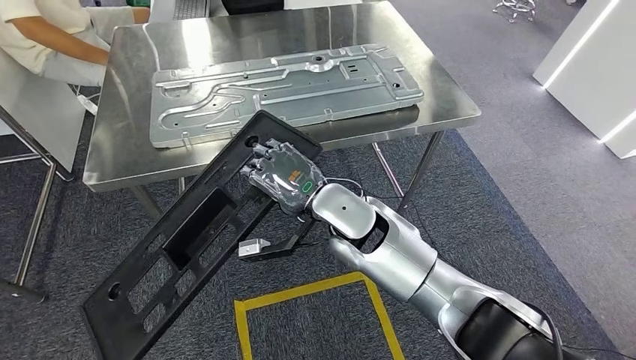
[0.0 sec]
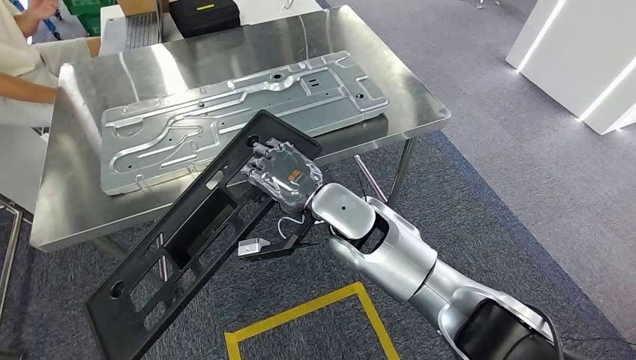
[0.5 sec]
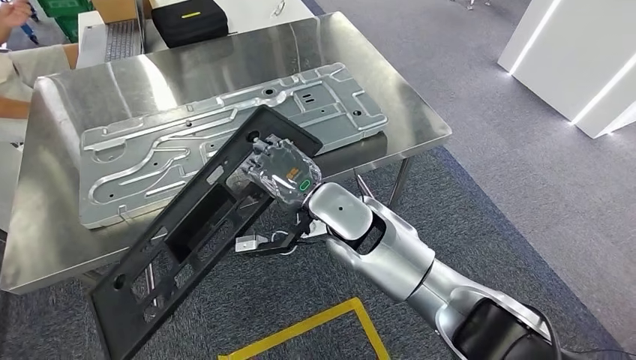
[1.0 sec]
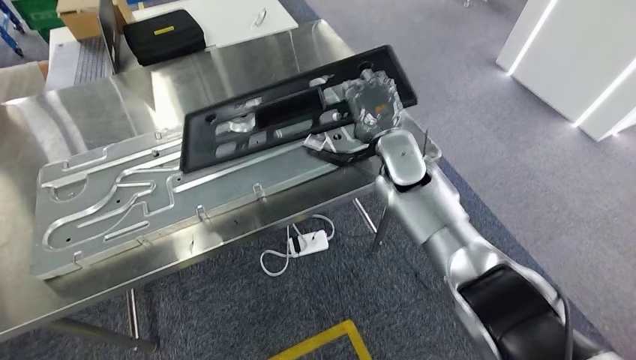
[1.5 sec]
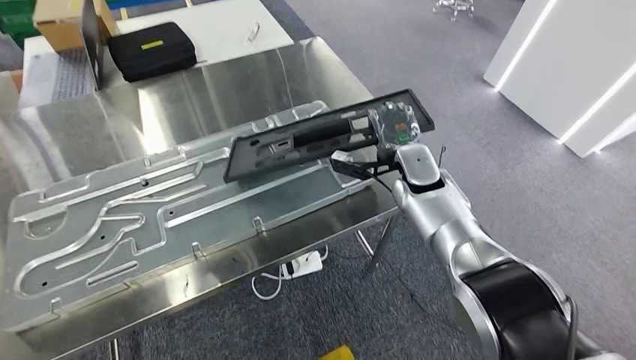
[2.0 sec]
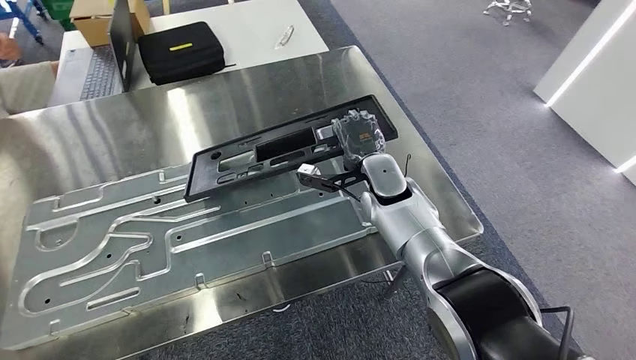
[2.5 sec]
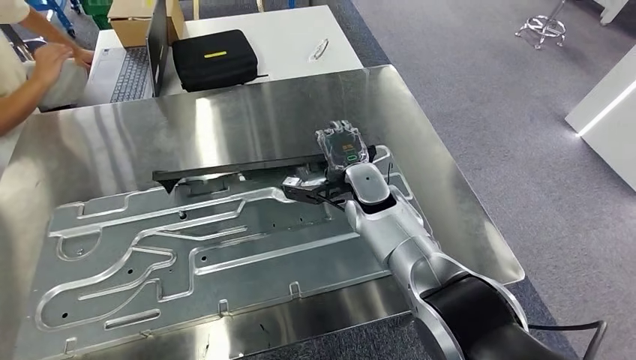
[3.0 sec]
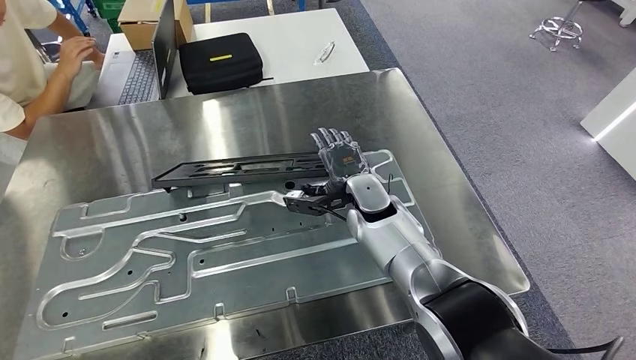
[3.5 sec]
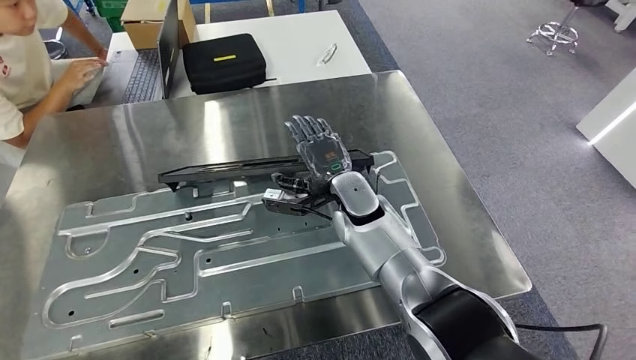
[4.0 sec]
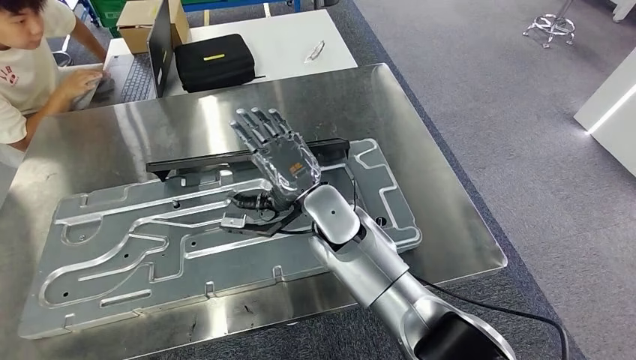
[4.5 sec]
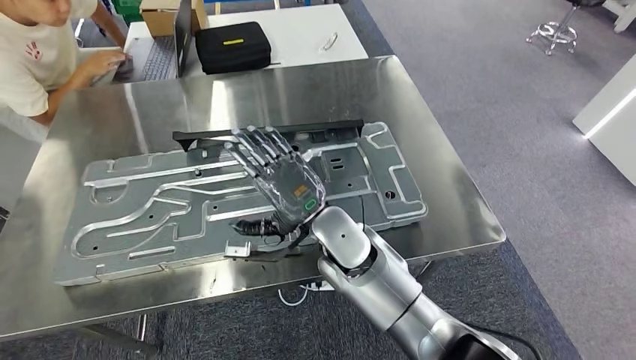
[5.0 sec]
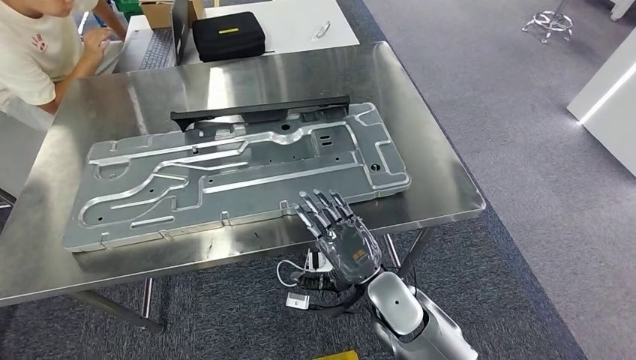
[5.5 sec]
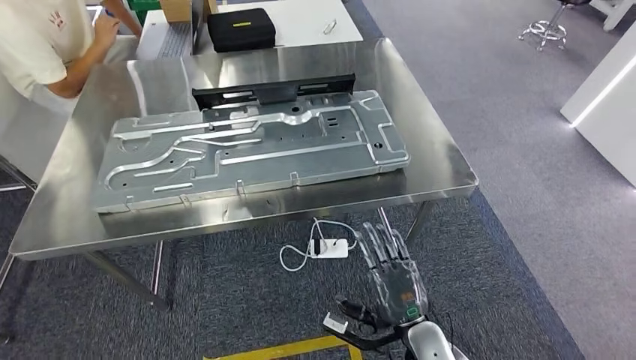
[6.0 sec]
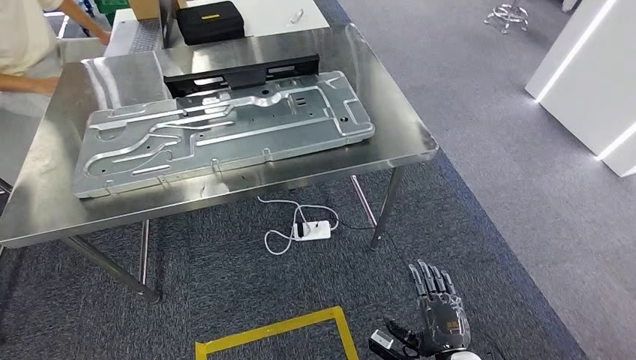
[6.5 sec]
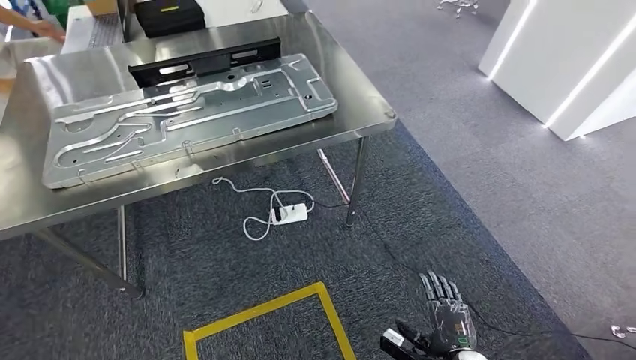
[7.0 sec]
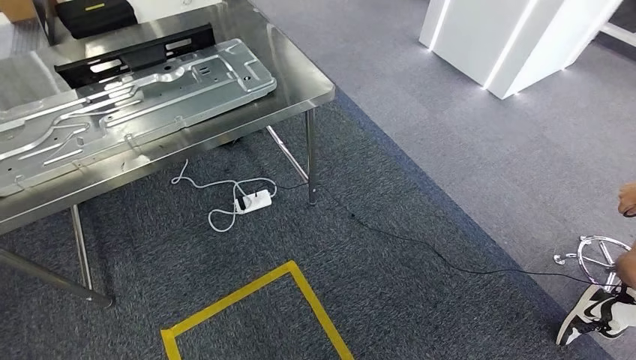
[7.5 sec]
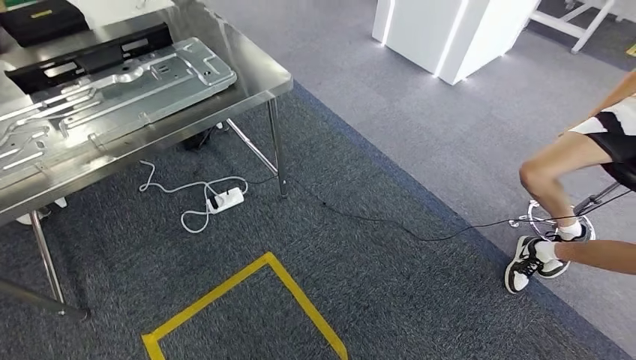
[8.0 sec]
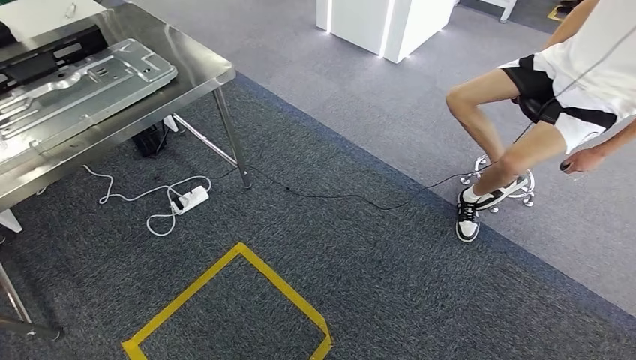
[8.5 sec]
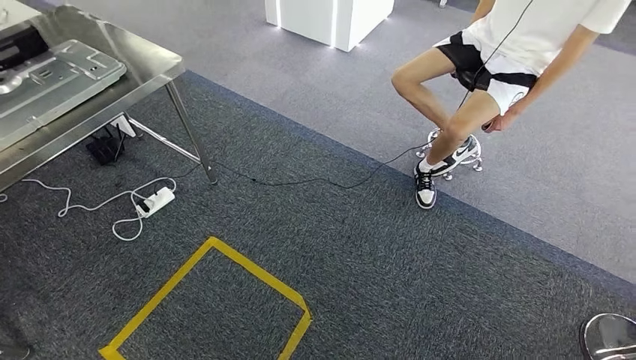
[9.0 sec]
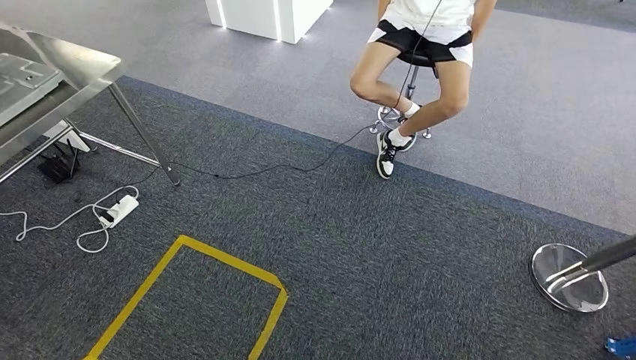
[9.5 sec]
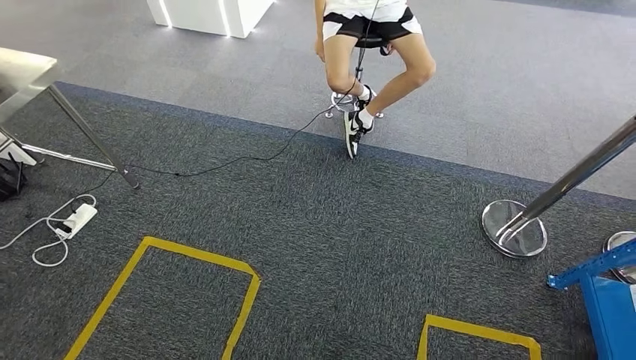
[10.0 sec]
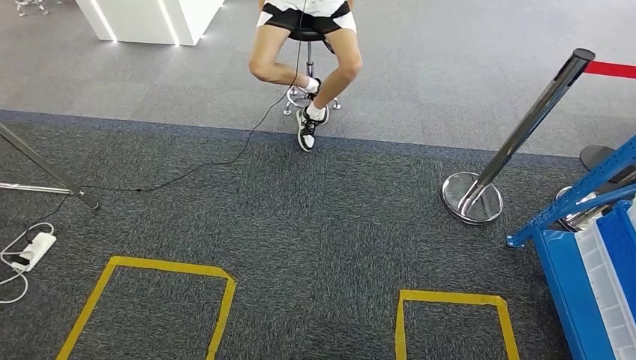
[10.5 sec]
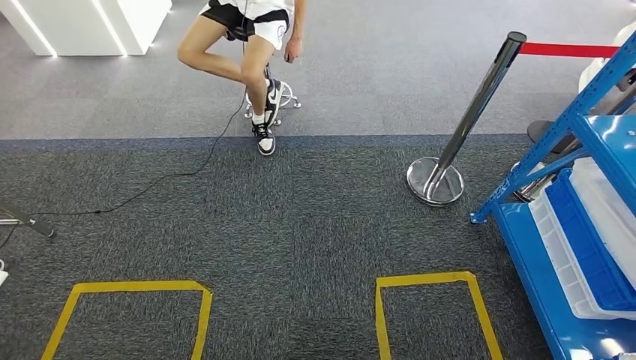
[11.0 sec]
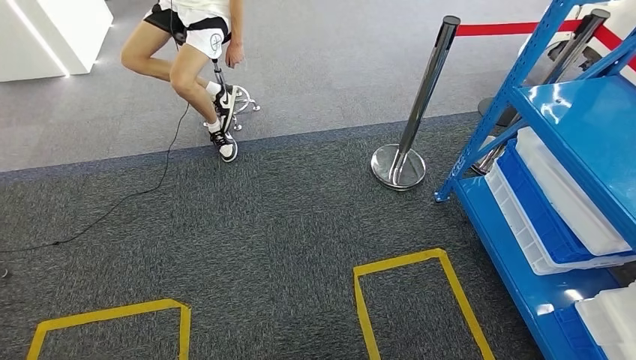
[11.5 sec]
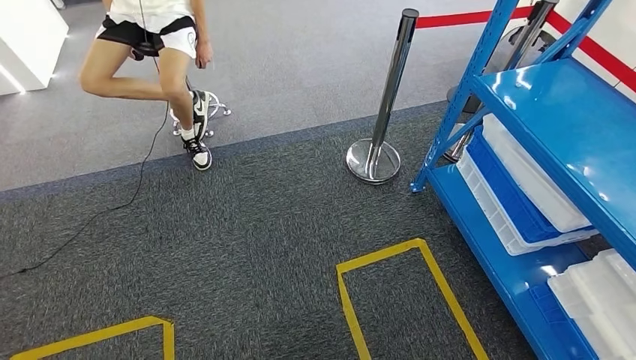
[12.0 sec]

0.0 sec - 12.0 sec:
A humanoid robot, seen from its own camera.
Step, 0.0 sec - 7.5 sec: Insert the large material into the corresponding slot on the workbench.

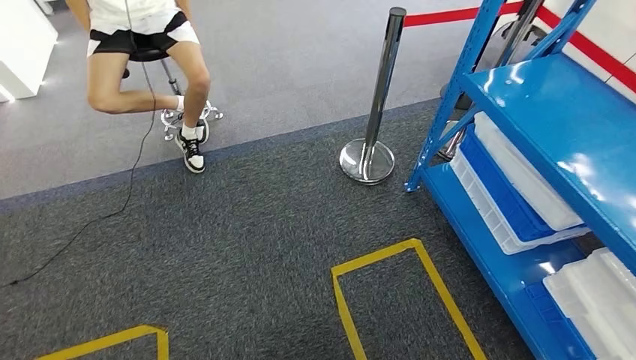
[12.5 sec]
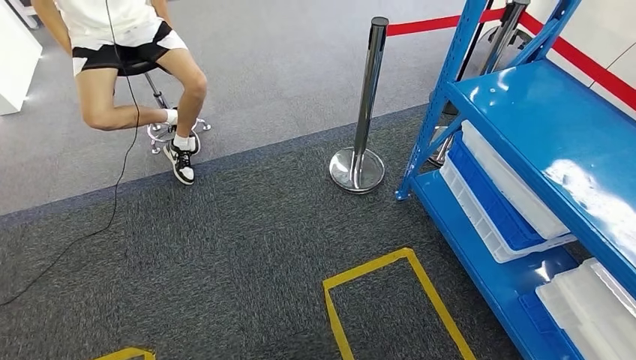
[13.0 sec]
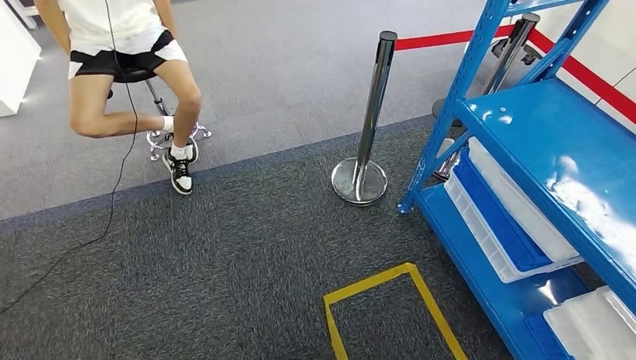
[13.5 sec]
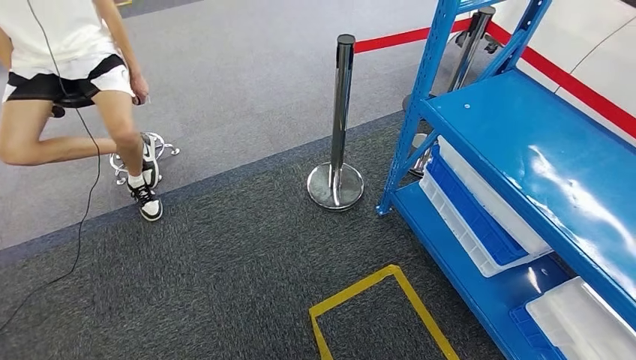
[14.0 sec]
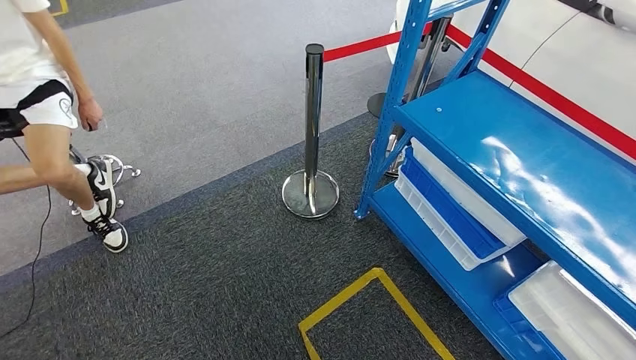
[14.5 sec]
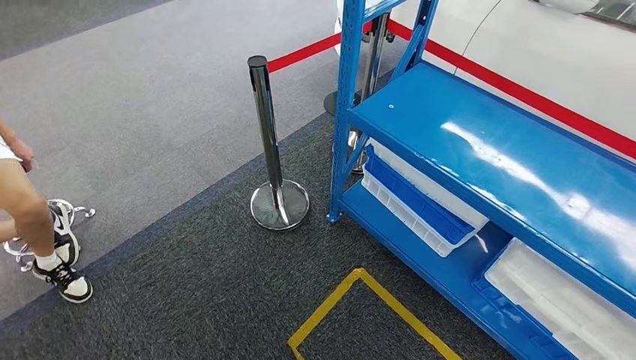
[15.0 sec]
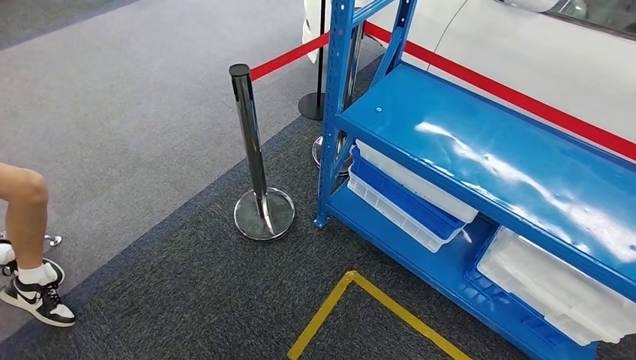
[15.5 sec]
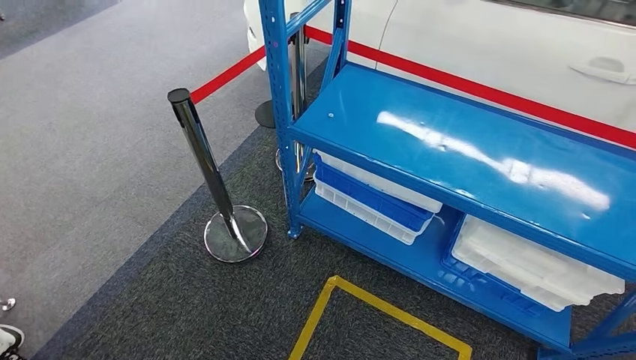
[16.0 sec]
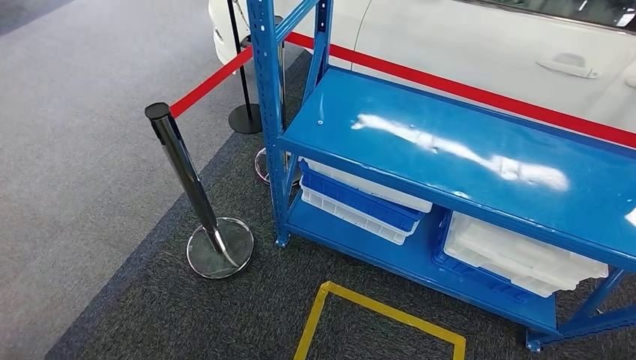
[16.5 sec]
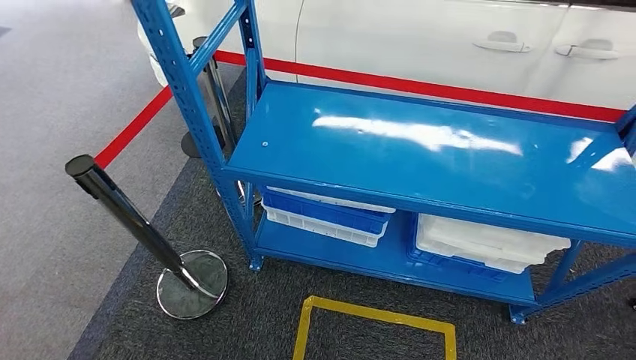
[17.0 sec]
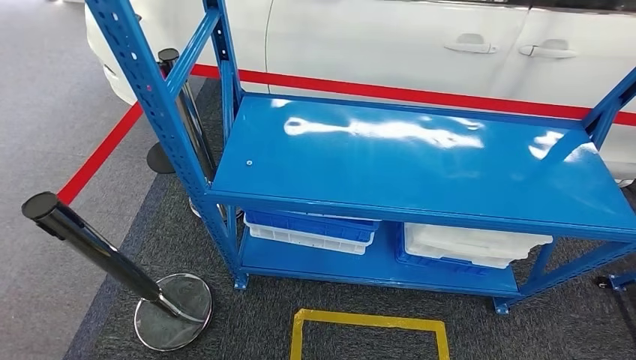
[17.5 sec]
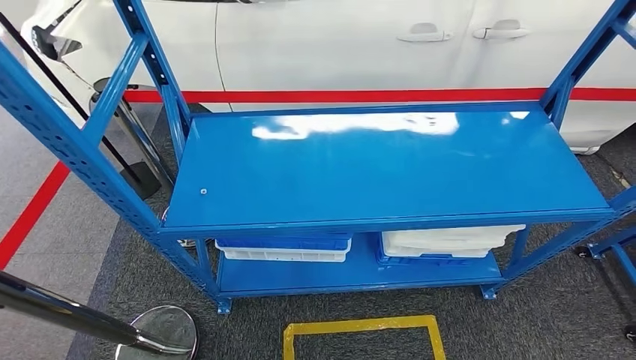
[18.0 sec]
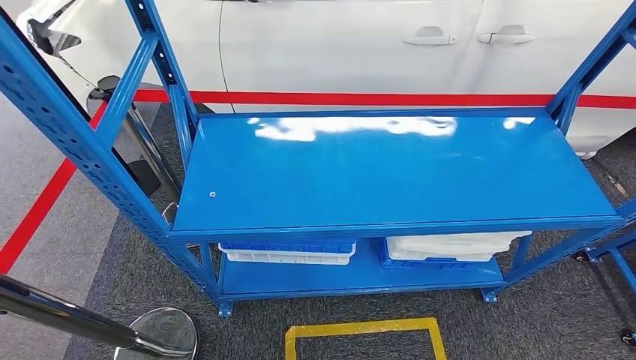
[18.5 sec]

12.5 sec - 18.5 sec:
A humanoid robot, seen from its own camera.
Step, 12.5 sec - 18.5 sec: Return to the initial position at the shelf.
